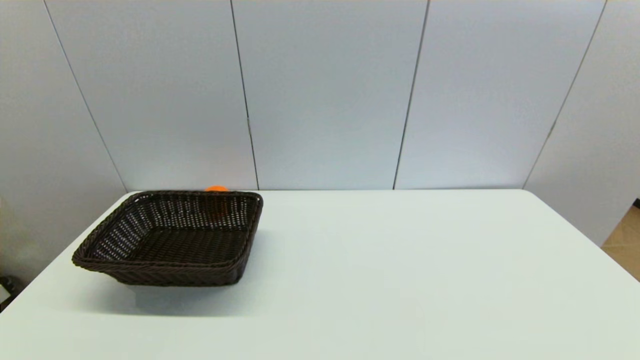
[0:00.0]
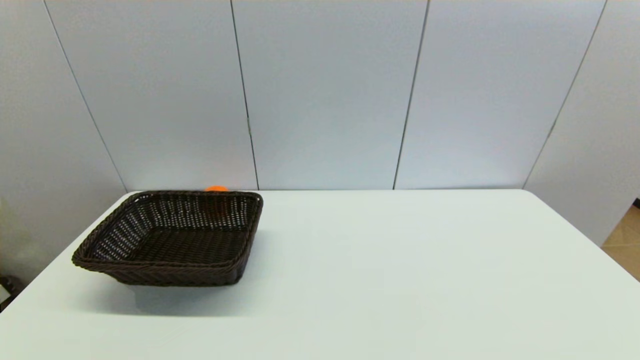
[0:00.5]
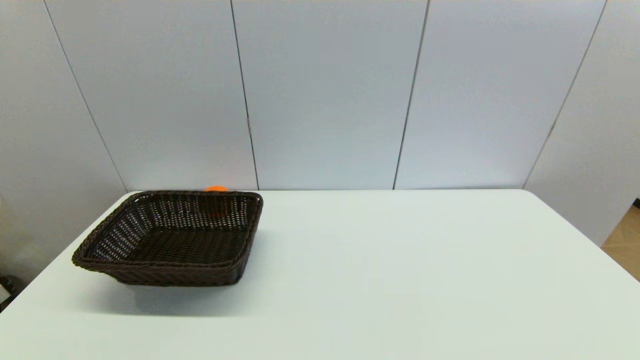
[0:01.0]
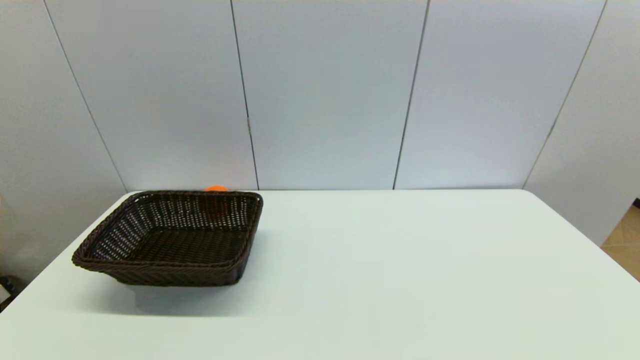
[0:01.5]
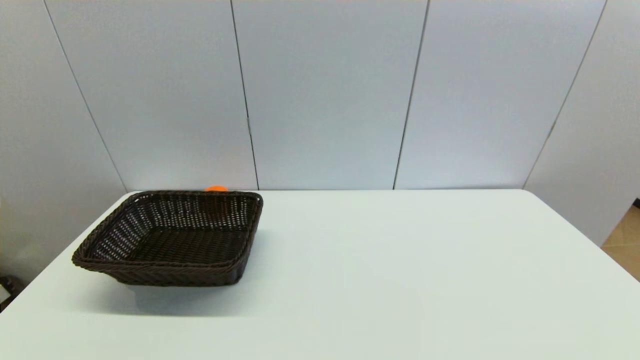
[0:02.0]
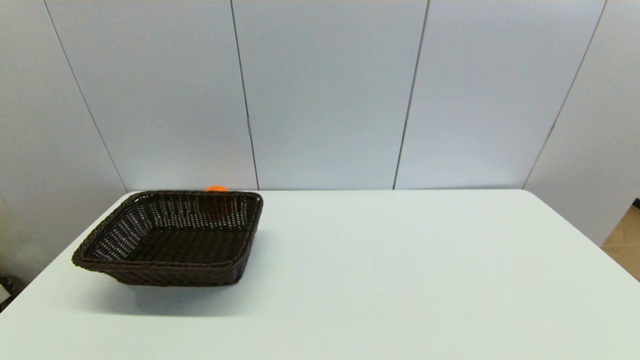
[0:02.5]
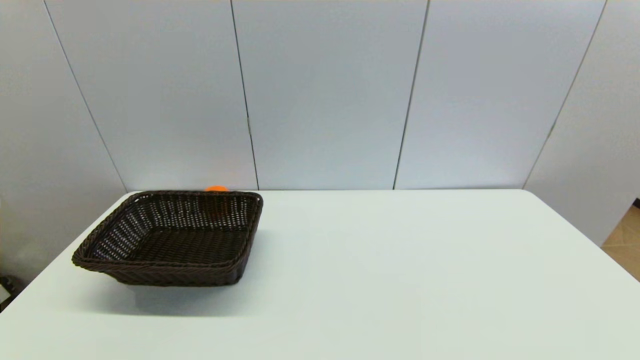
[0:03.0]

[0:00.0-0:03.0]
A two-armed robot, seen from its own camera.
0:00.0 to 0:03.0: Both grippers stay put.

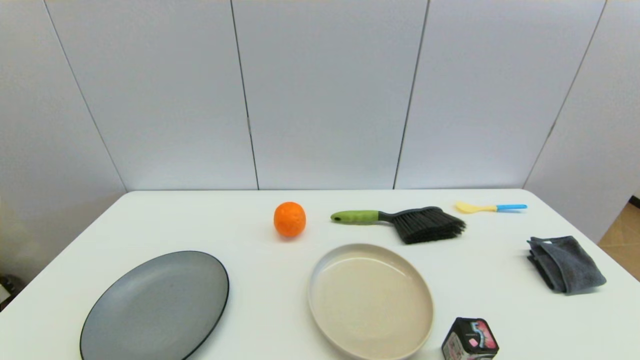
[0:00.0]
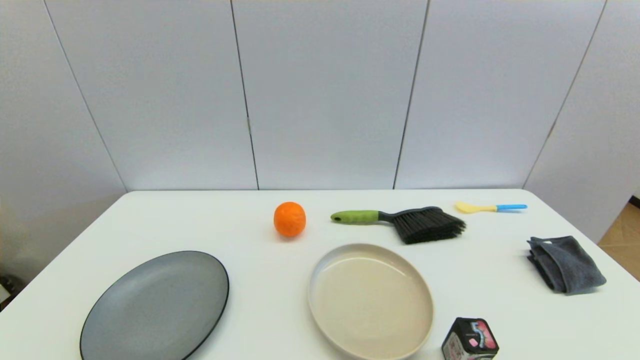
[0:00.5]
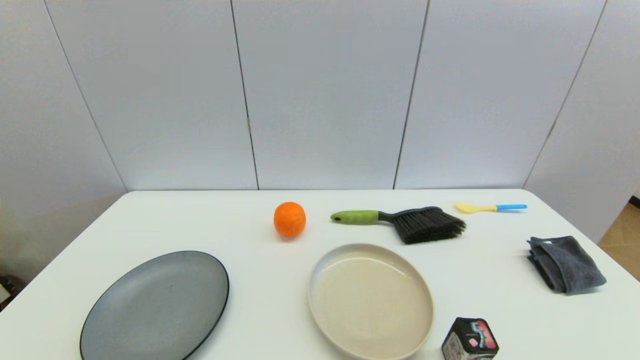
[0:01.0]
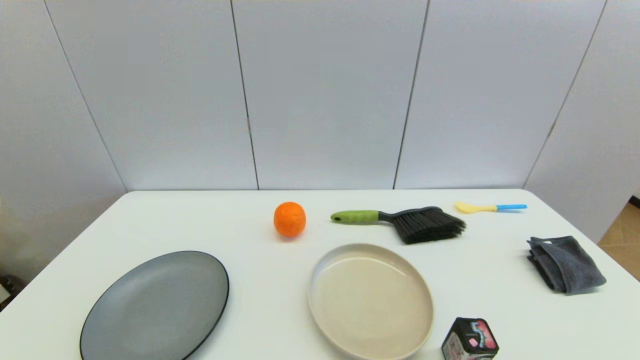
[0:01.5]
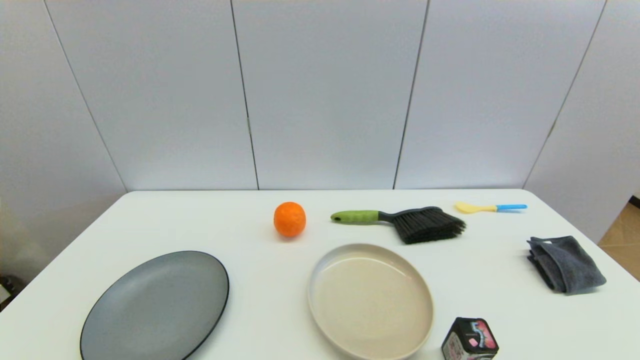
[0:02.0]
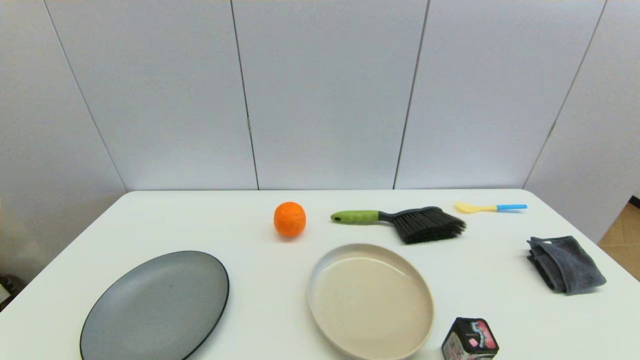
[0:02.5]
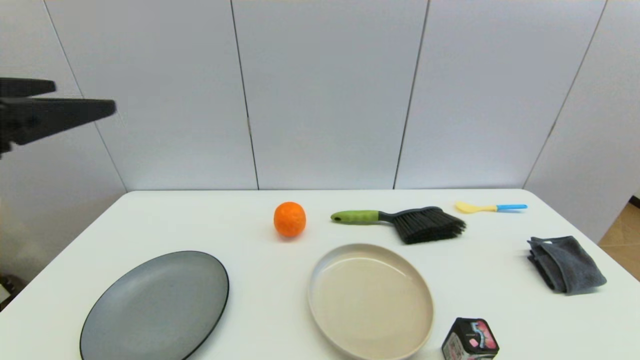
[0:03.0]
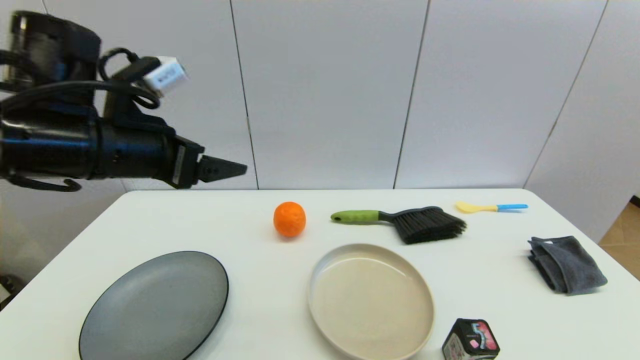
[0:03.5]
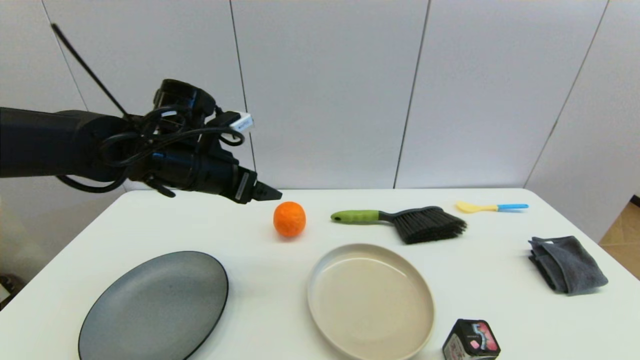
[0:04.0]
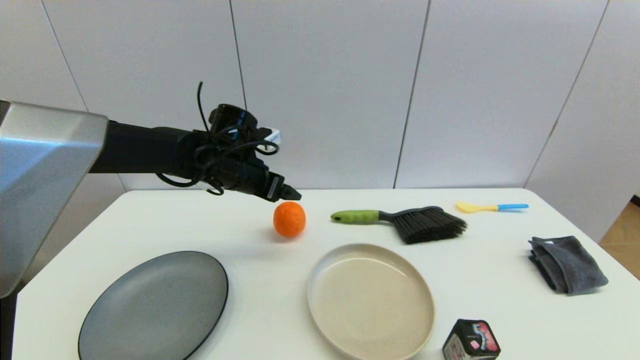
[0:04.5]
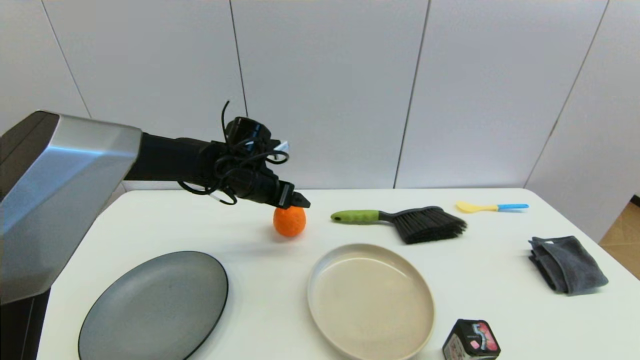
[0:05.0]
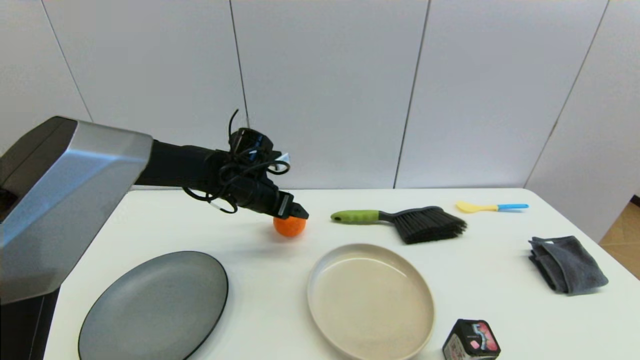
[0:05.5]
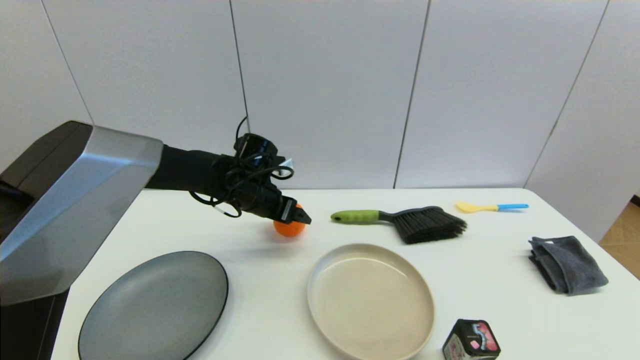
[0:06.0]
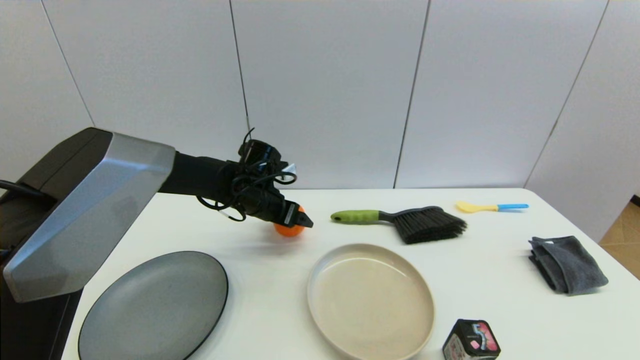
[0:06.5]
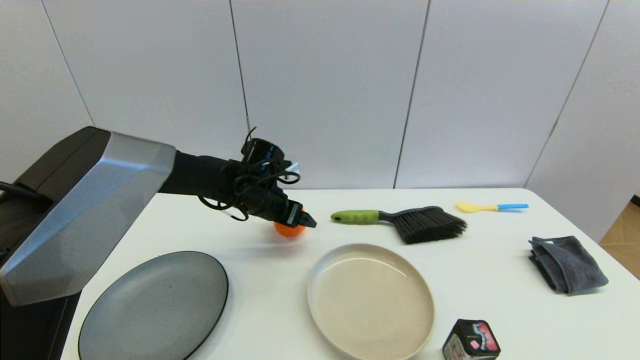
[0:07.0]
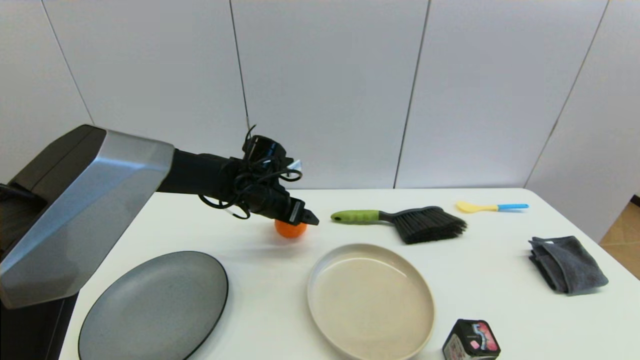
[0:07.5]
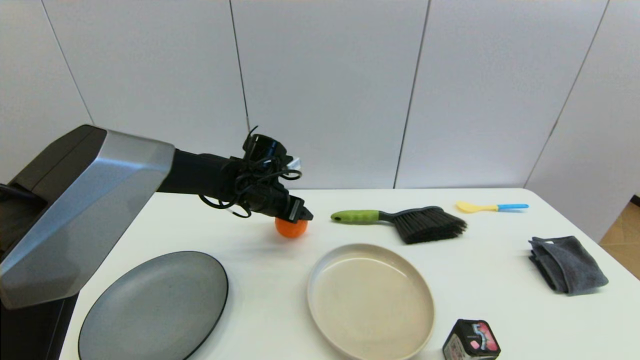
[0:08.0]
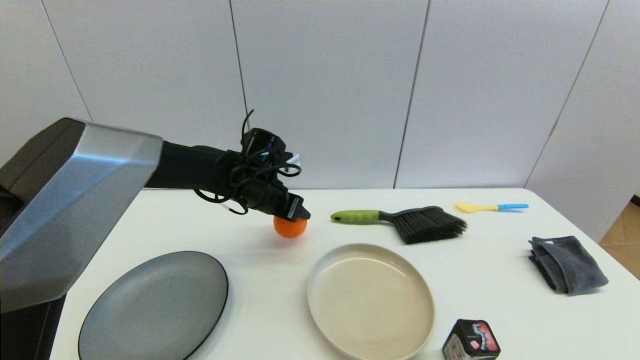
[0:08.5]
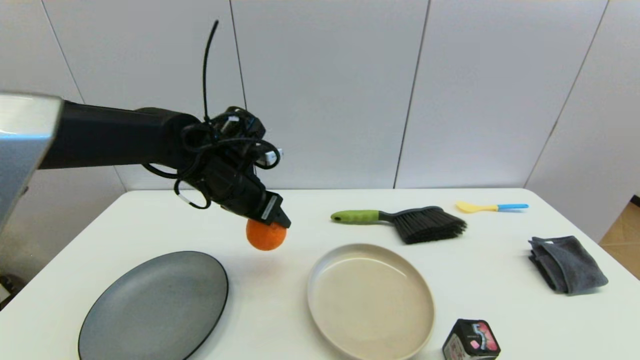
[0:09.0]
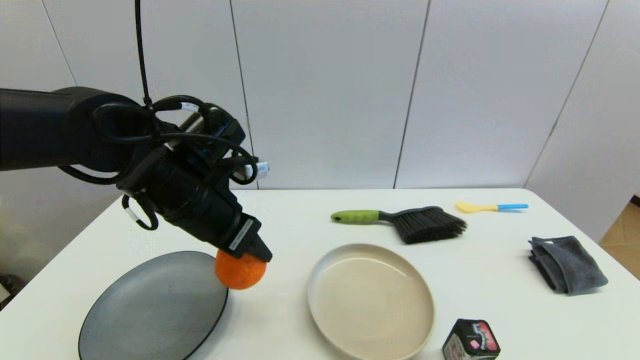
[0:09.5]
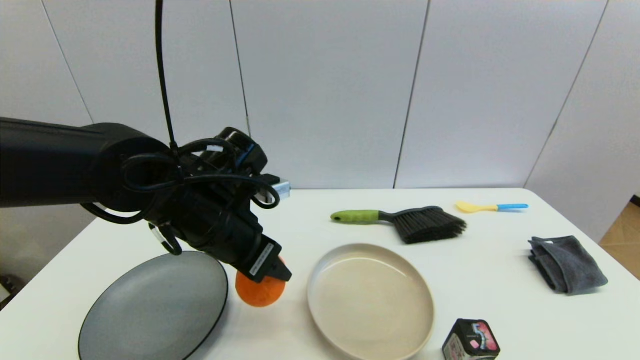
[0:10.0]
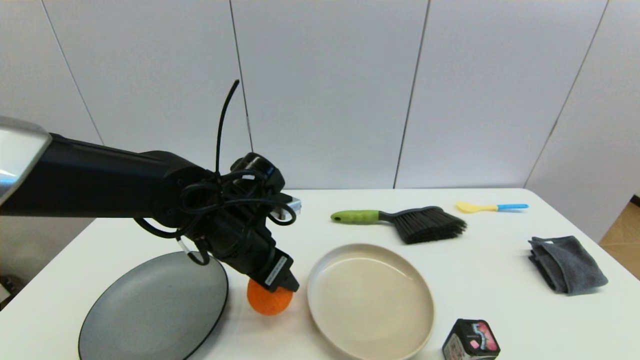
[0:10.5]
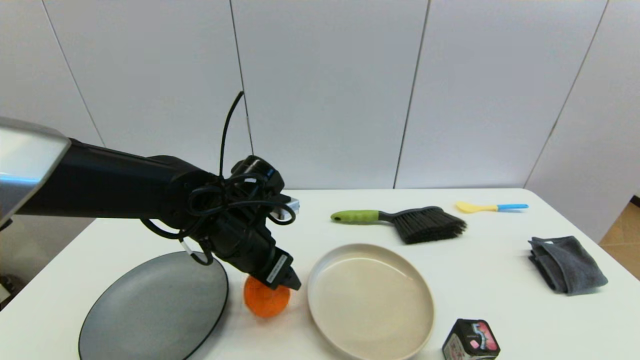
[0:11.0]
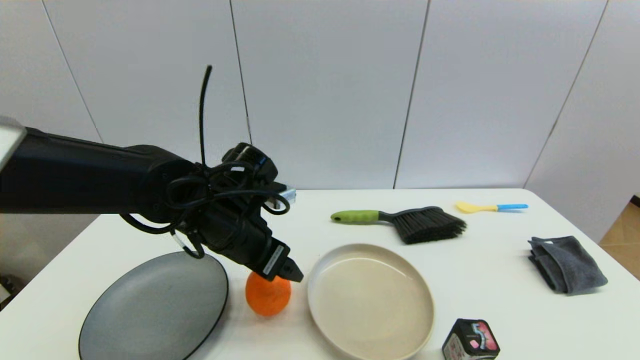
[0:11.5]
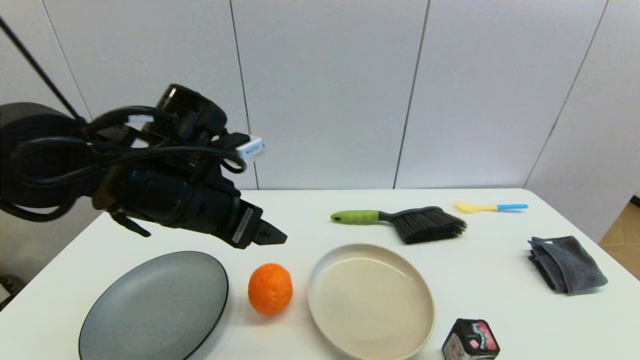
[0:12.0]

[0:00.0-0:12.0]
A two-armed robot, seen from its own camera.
Step, 0:03.0 to 0:08.0: Grasp the orange with left gripper.
Step, 0:08.5 to 0:11.0: Place the orange on the table with left gripper.
0:02.0 to 0:04.0: The left gripper shifts roughly 40 cm forward.
0:04.0 to 0:06.0: The left gripper goes about 15 cm downward, forward and to the right.
0:06.0 to 0:08.0: The left gripper closes up.
0:08.0 to 0:10.0: The left gripper shifts about 15 cm backward and upward, and closes its fingers.
0:10.0 to 0:12.0: The left gripper opens up.

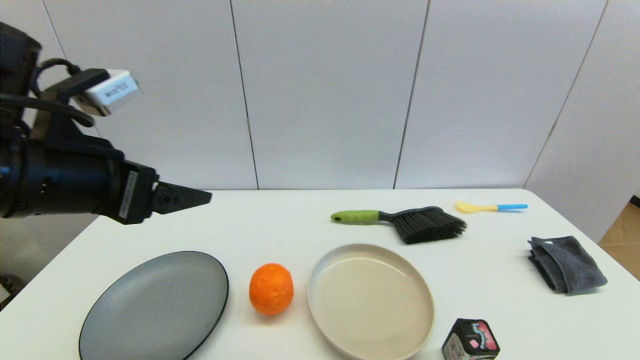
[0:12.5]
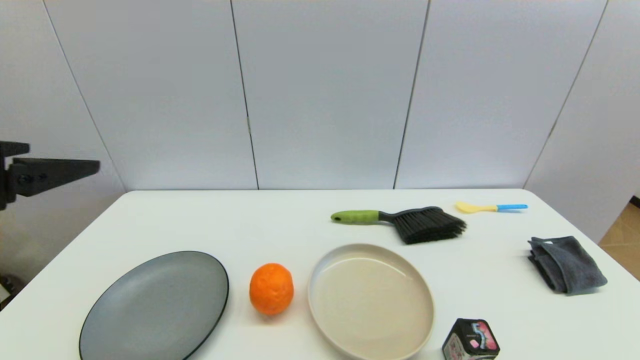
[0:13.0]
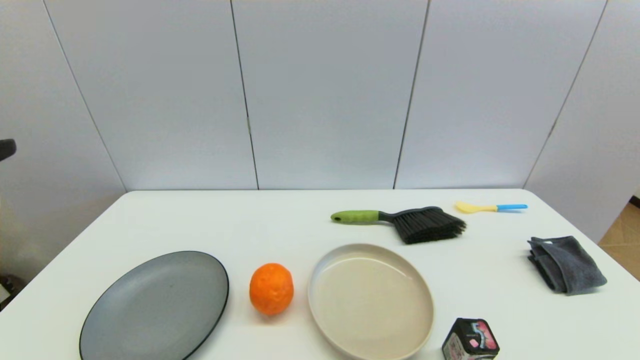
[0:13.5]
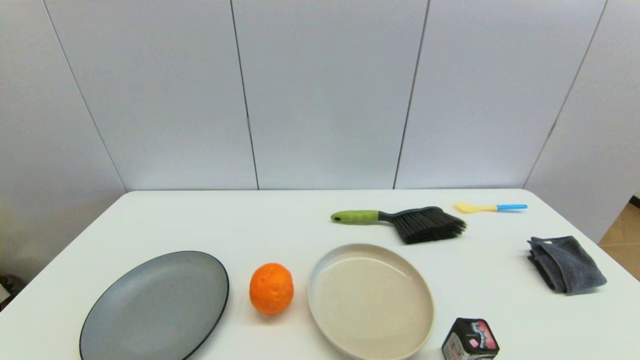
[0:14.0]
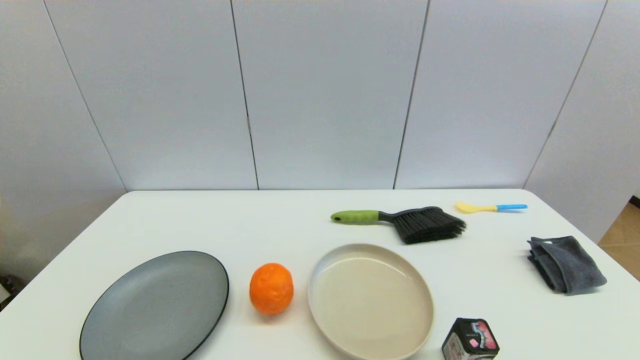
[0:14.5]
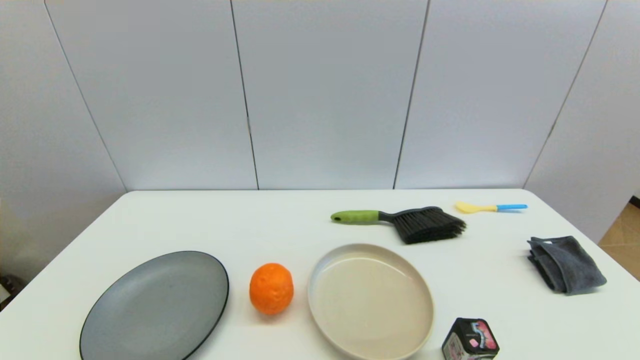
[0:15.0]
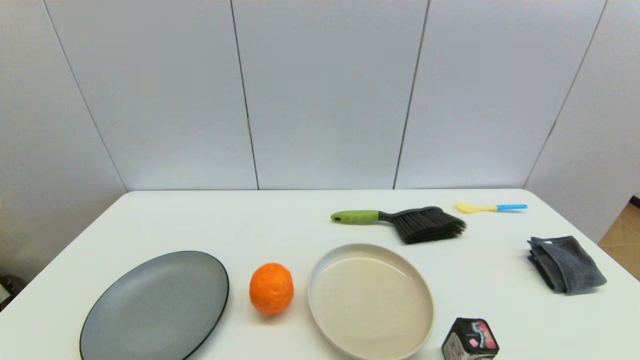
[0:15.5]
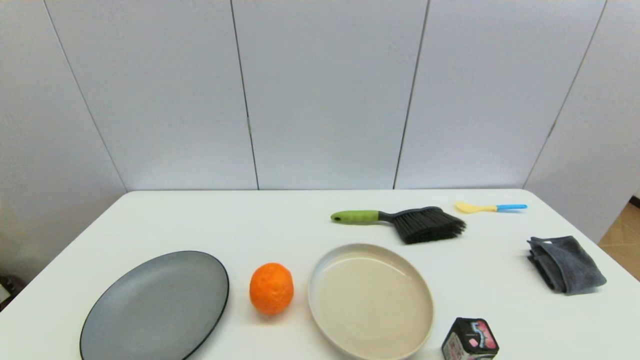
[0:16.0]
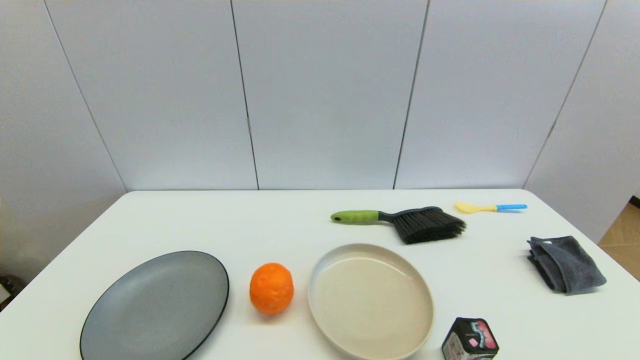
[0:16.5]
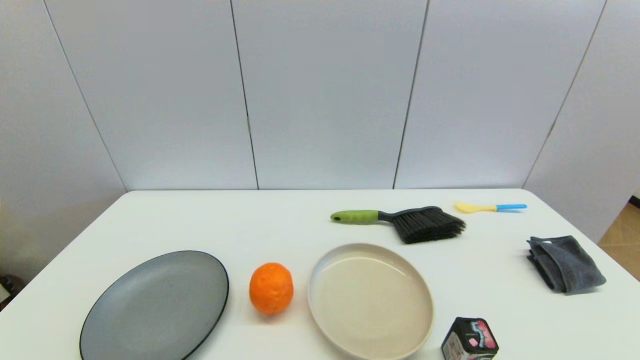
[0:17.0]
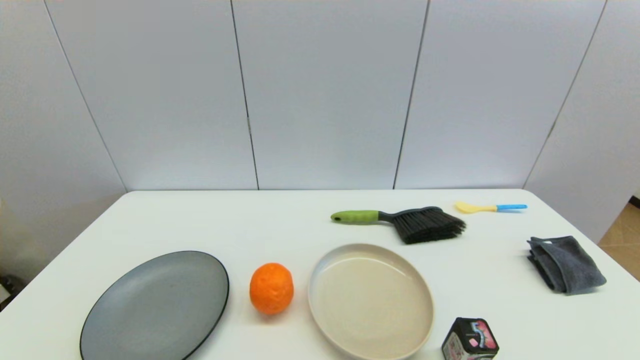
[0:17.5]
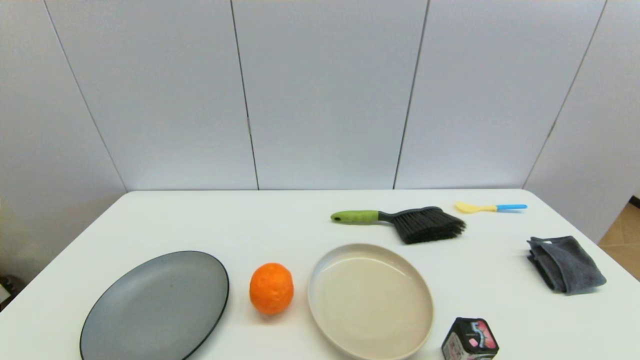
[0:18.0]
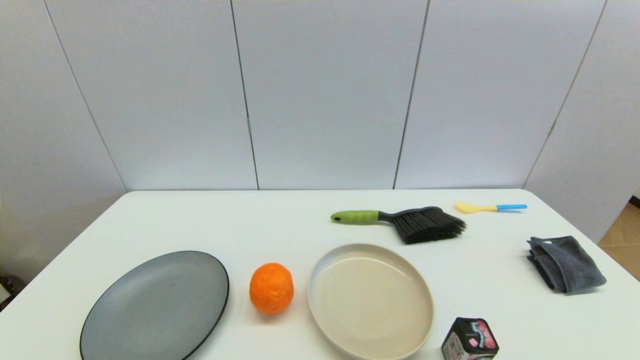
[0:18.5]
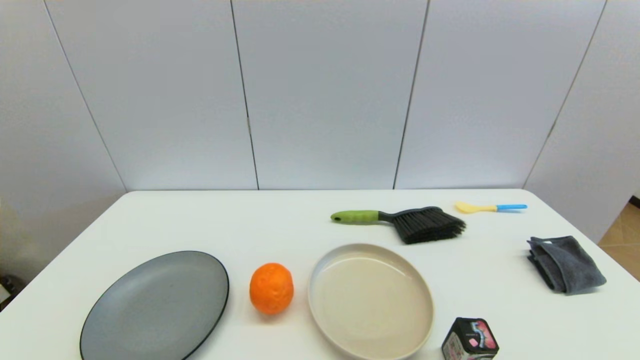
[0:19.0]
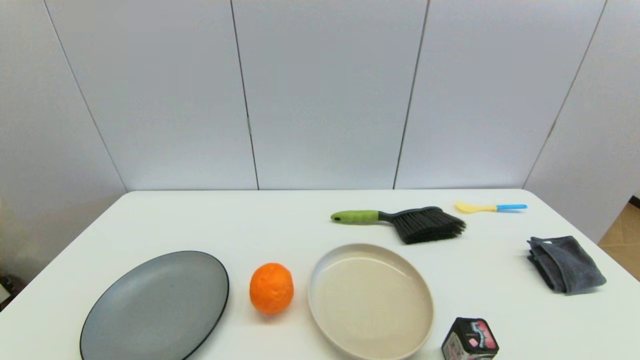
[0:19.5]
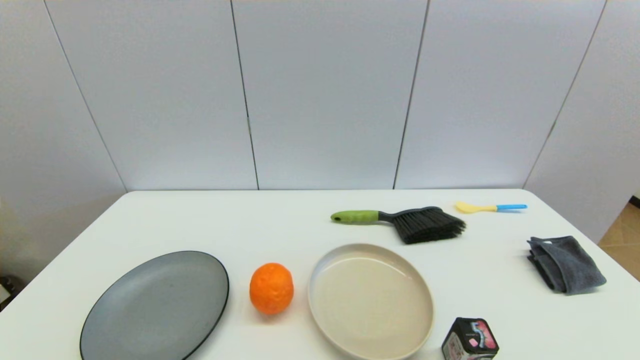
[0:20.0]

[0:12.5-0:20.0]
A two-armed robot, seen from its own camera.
0:12.5 to 0:14.5: The left gripper moves backward and to the left, approximately 15 cm.
0:18.0 to 0:20.0: Both grippers stay about where they are.
